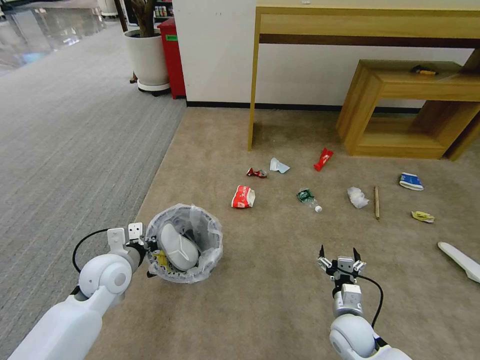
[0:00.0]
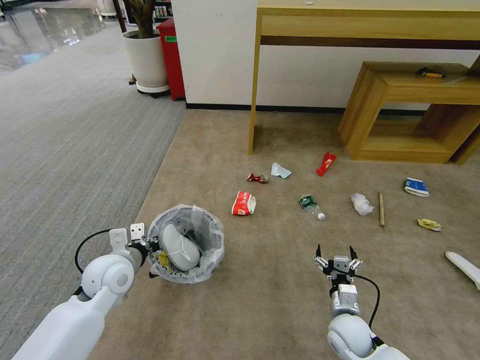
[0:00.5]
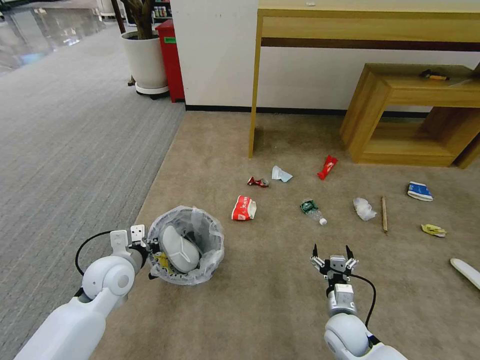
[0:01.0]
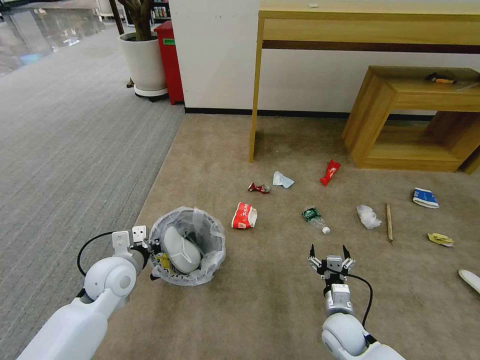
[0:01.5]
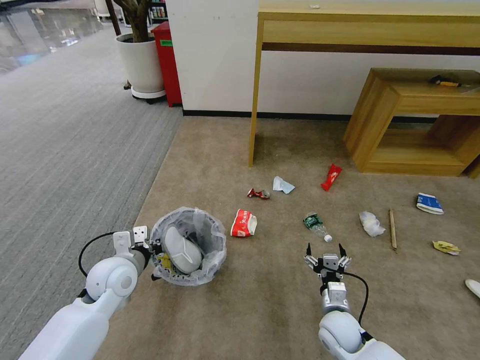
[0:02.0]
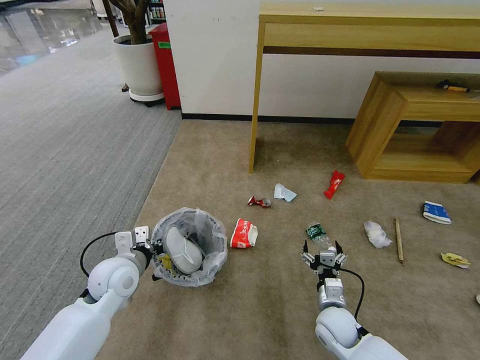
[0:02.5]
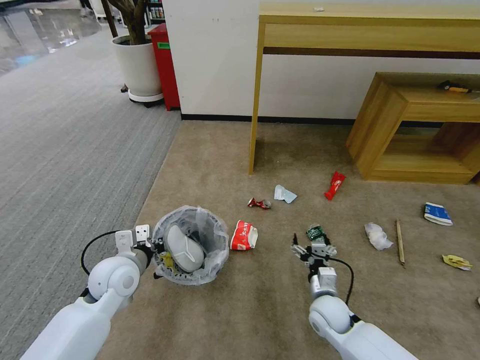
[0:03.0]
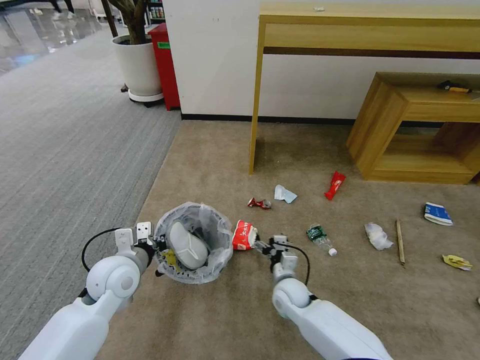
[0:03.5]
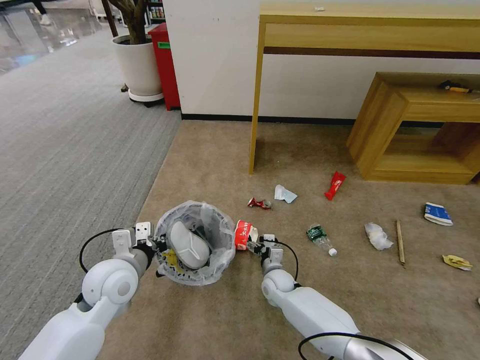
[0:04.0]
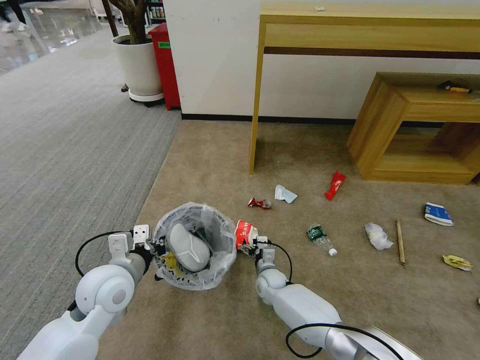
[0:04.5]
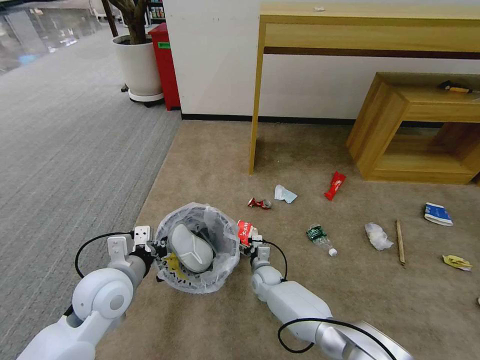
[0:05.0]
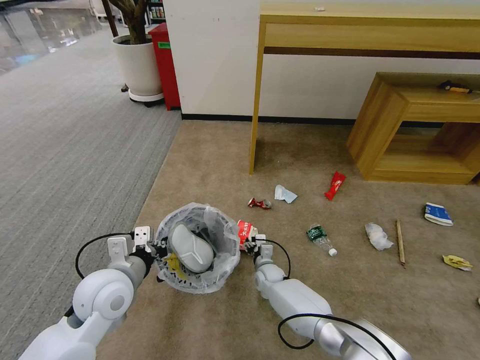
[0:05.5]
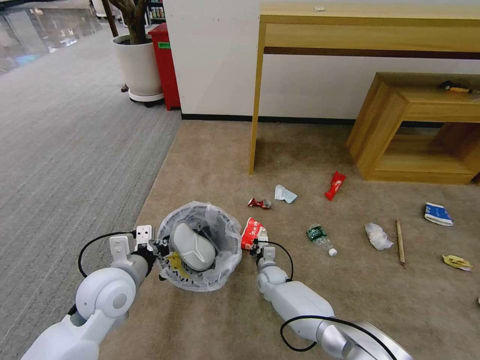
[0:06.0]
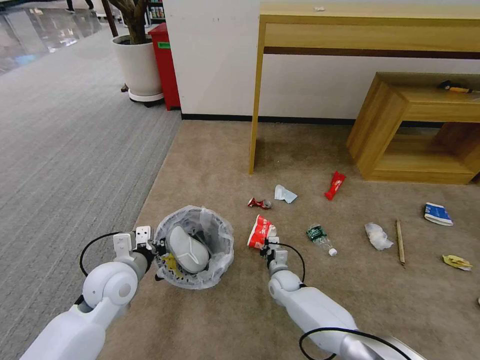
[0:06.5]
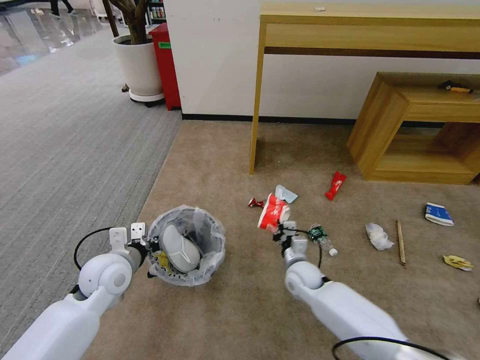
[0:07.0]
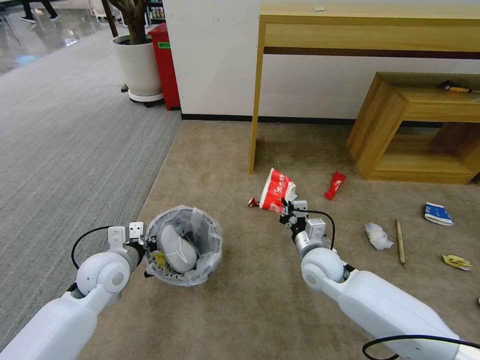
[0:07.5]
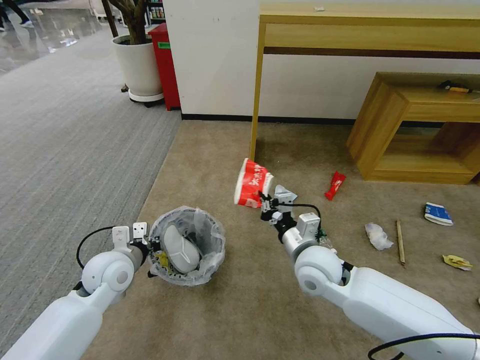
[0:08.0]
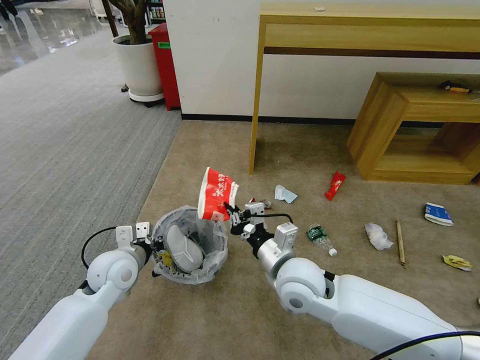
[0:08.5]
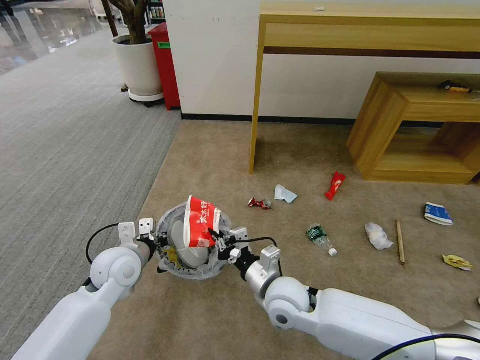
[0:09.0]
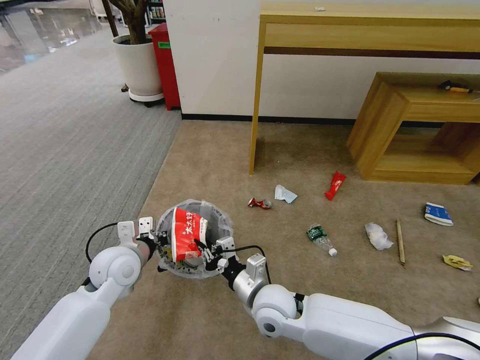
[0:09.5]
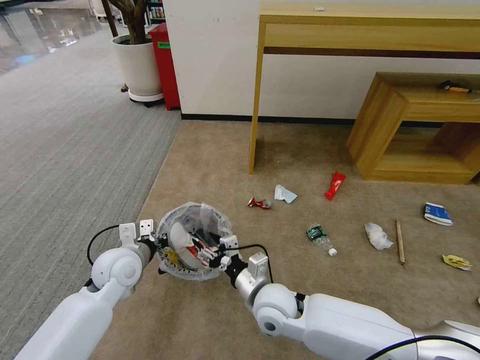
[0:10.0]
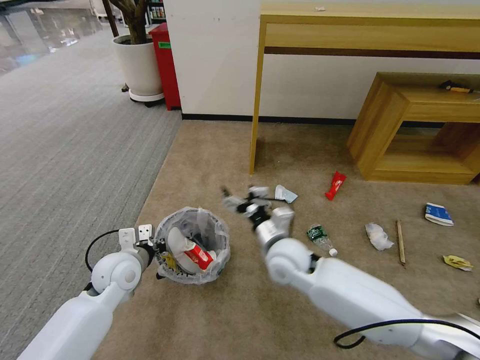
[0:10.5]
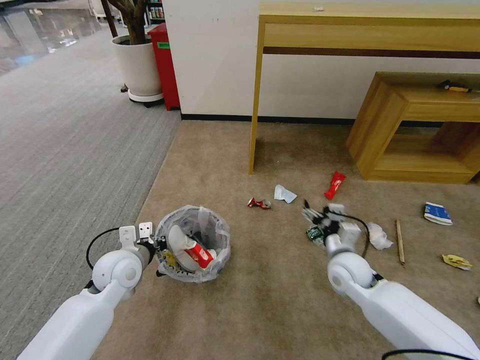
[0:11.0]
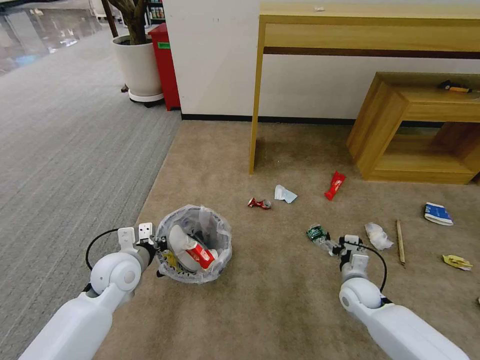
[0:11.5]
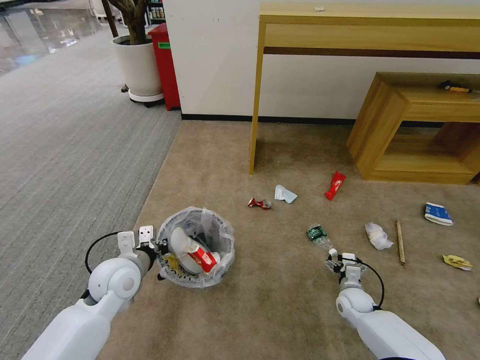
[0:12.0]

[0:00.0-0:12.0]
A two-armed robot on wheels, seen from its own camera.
Task of the whole recording: Pick up the trash bin and place the garbage on the floor into it.
0:02.0 to 0:04.0: The right gripper travels forward and to the left by about 20 cm.
0:04.0 to 0:06.0: The right gripper moves about 5 cm, and closes up.
0:06.0 to 0:08.0: The left gripper moves forward, some 5 cm. Meanwhile the right gripper moves upward, about 25 cm.
0:08.0 to 0:10.0: The right gripper heads to the left, downward and backward, covering about 15 cm, and opens its fingers.
0:10.0 to 0:12.0: The right gripper moves to the right and downward, some 35 cm, and opens its fingers.

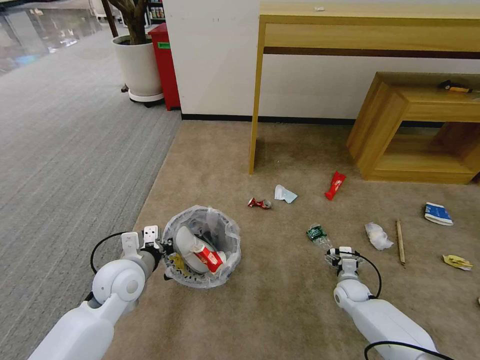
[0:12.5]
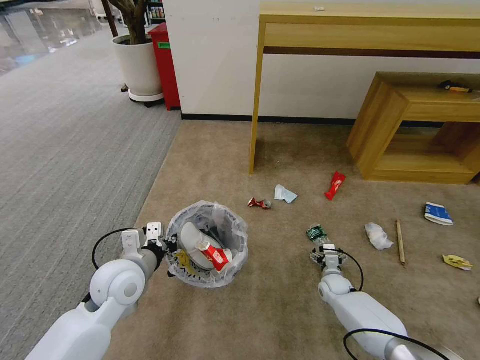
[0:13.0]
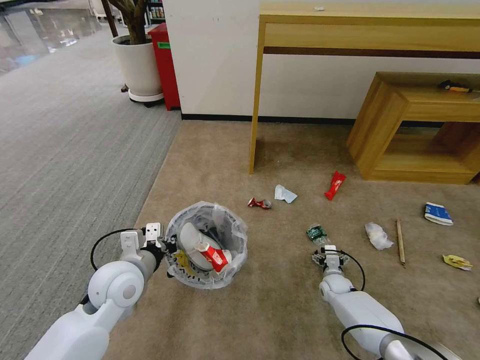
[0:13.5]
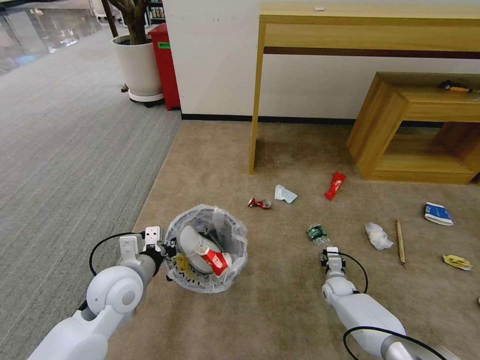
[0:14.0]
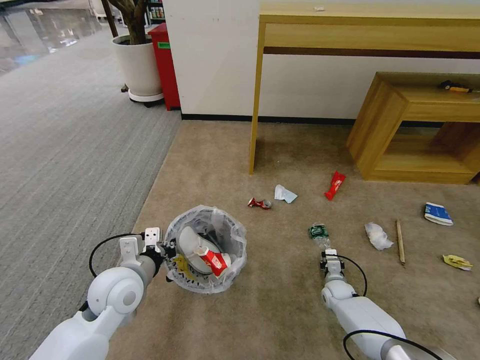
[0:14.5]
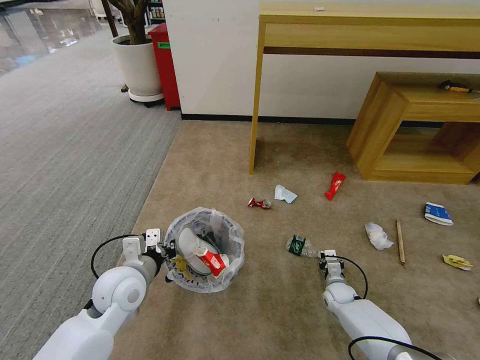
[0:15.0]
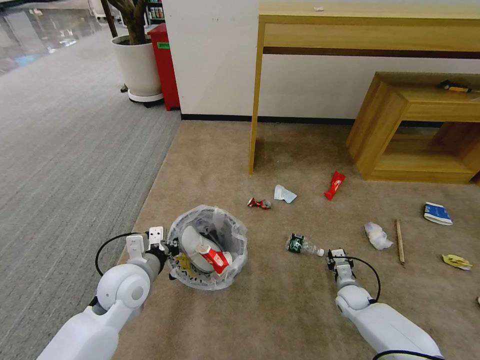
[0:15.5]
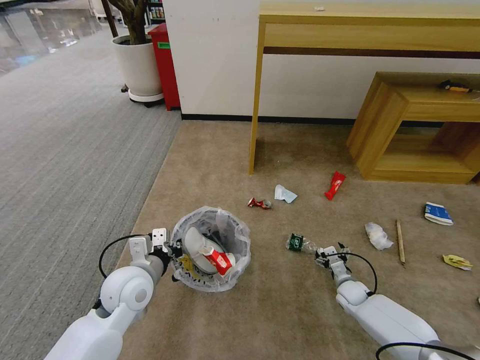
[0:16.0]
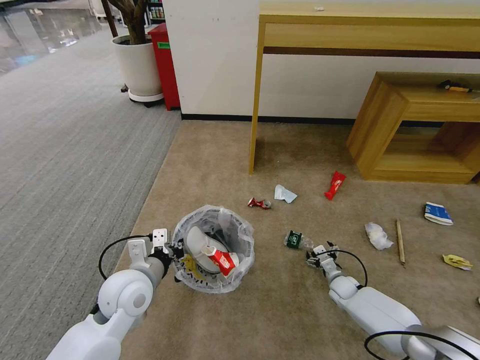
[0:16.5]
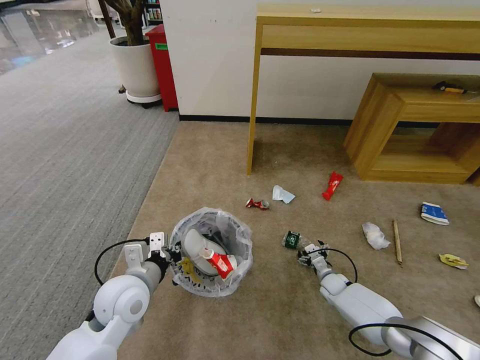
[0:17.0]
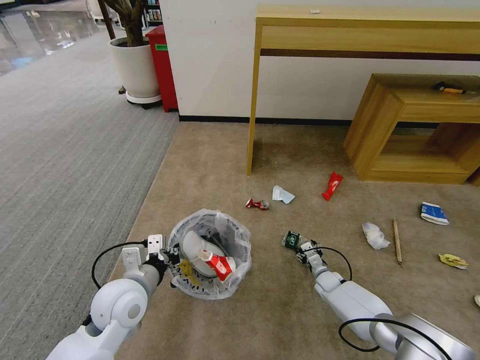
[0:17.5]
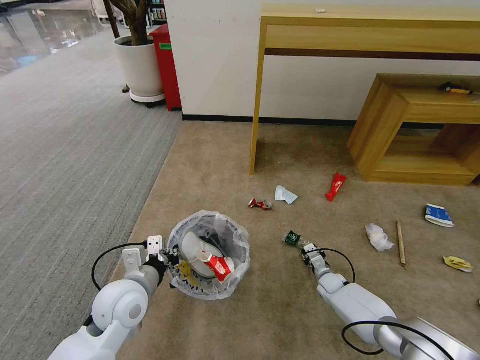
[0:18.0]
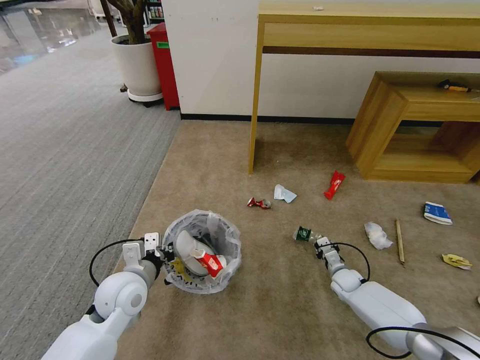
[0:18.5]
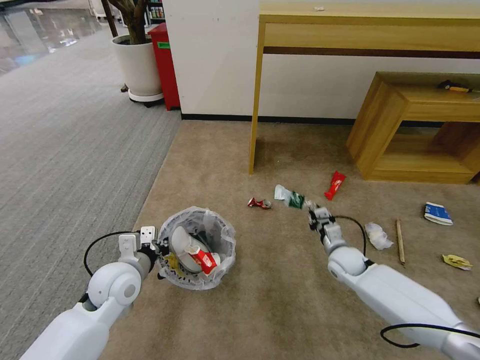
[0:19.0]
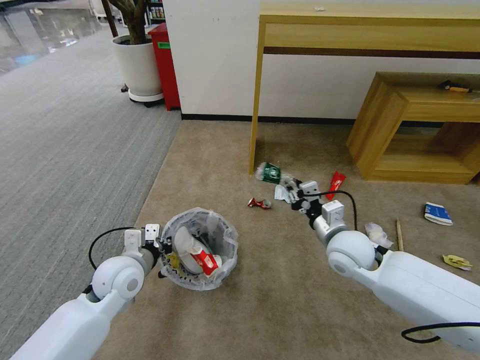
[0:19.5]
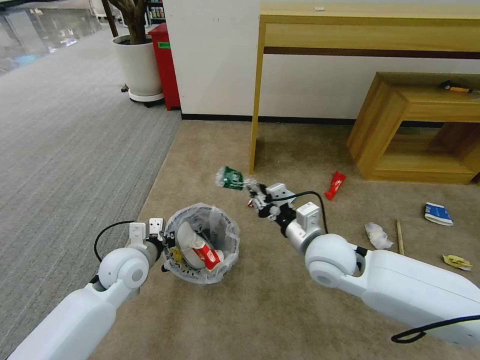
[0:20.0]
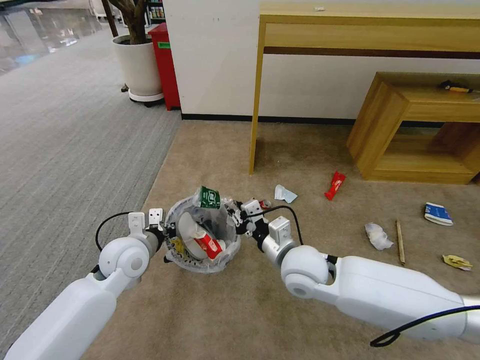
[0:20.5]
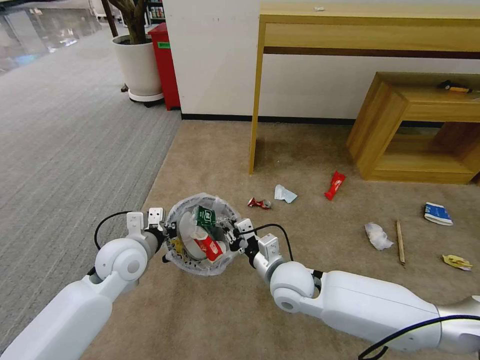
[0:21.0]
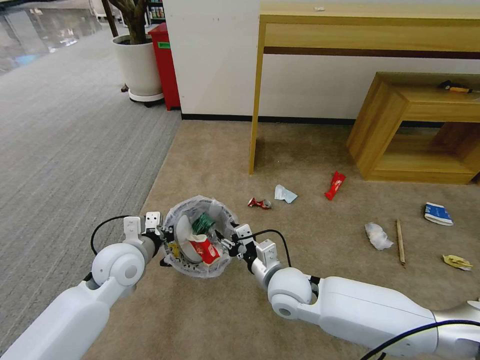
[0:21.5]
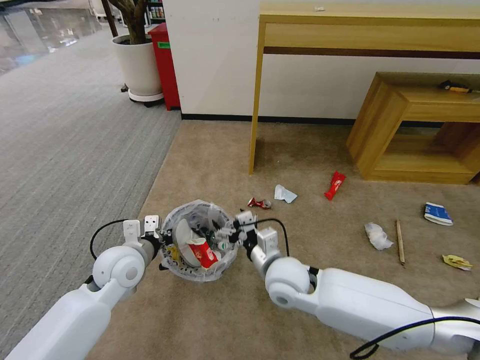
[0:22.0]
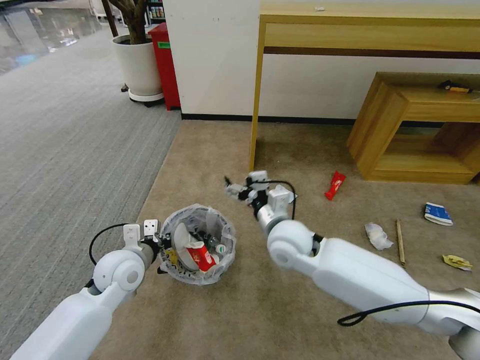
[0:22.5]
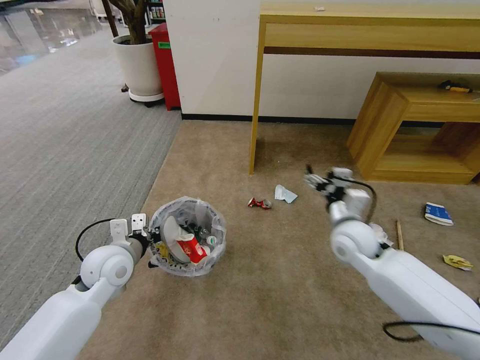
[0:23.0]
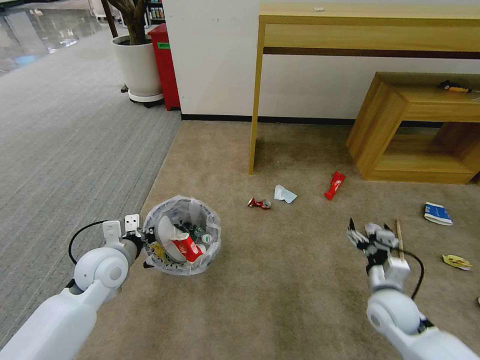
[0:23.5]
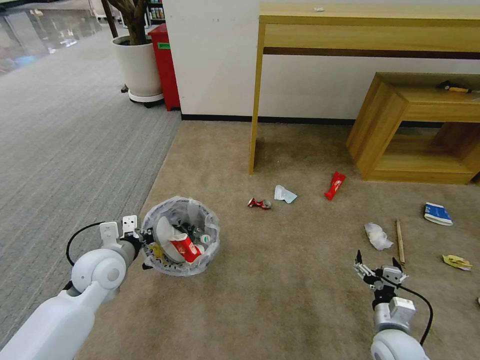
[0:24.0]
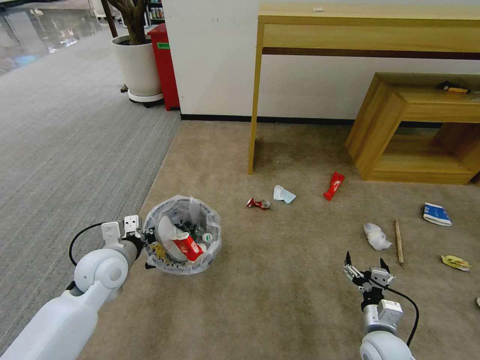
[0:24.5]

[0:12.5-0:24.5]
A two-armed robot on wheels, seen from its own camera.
Task of the whole recording: Pick up the trash bin and place the garbage on the floor into it.
0:12.5 to 0:14.5: The right gripper closes.
0:14.5 to 0:16.5: The right gripper opens.
0:16.5 to 0:18.5: The right gripper closes.
0:18.5 to 0:20.5: The left gripper is displaced forward by roughly 5 cm. Meanwhile the right gripper goes roughly 35 cm upward and to the left.
0:20.5 to 0:22.5: The right gripper is displaced forward by roughly 5 cm, goes downward and returns, approximately 5 cm each way, and opens its fingers.
0:22.5 to 0:24.5: The right gripper moves to the right, downward and backward, about 35 cm.

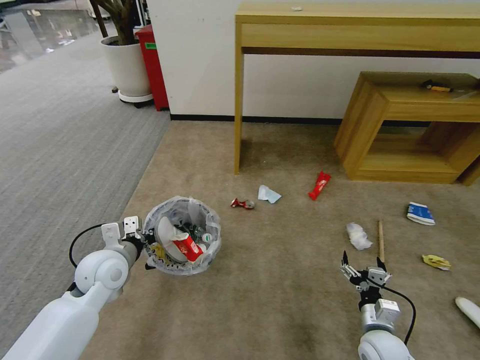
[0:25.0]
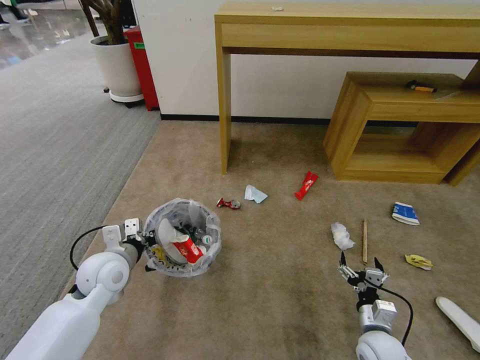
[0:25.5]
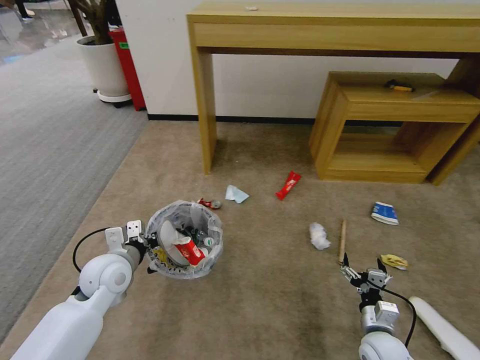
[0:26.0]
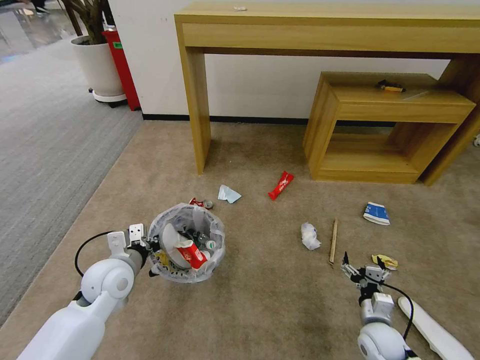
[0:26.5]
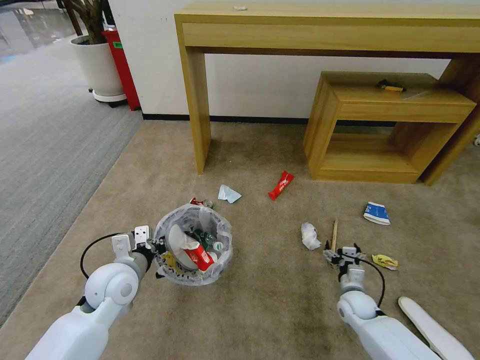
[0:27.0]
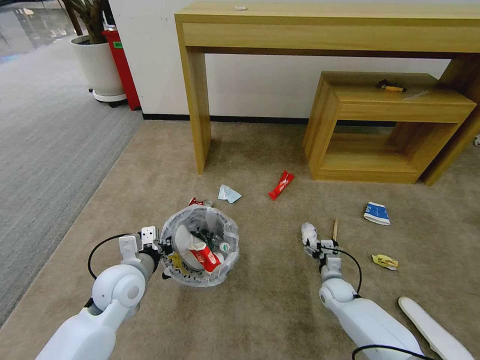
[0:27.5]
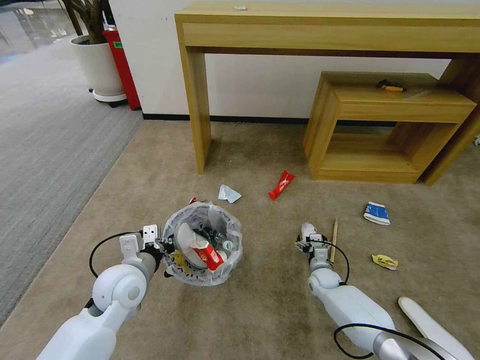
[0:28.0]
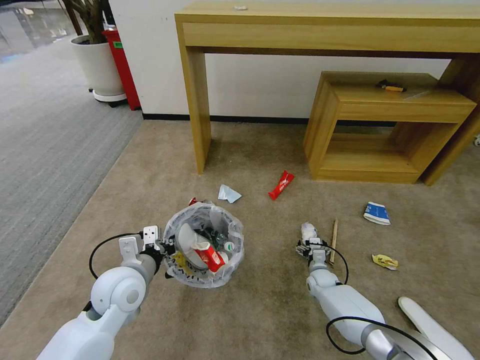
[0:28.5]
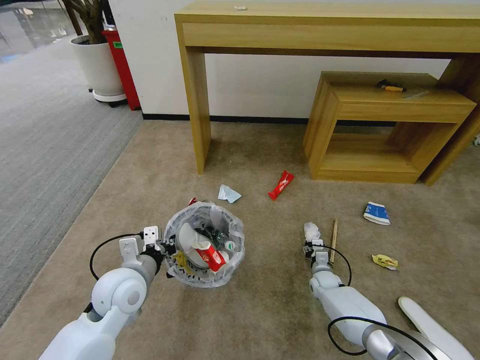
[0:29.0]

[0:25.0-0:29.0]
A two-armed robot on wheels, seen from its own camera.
Task of the whole recording: Pick up the trash bin and place the garbage on the floor into it.
0:25.0 to 0:27.0: The right gripper is displaced forward and downward by about 15 cm.
0:27.0 to 0:29.0: The right gripper heads forward and downward, covering approximately 10 cm, and closes up.
